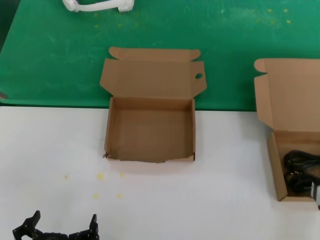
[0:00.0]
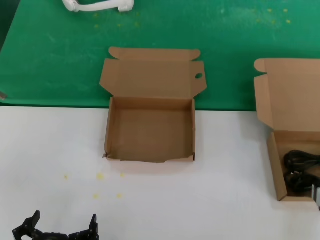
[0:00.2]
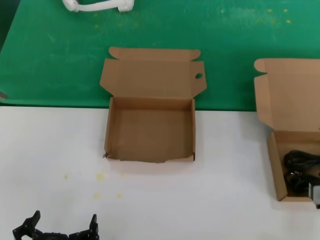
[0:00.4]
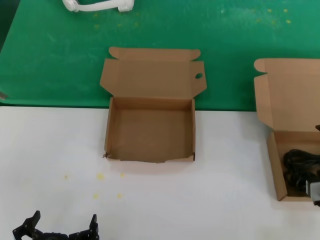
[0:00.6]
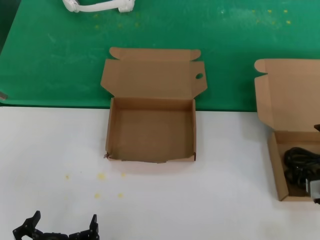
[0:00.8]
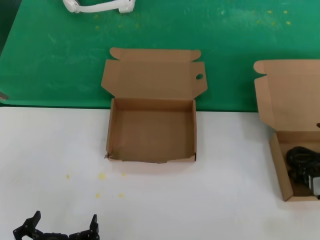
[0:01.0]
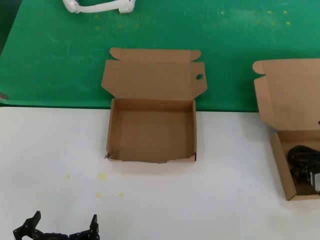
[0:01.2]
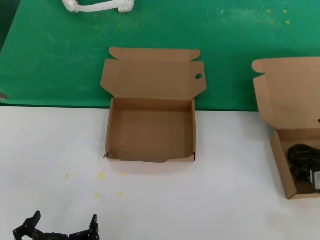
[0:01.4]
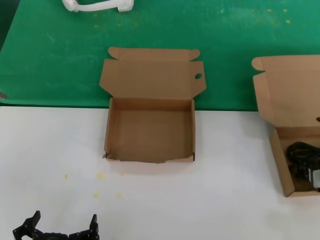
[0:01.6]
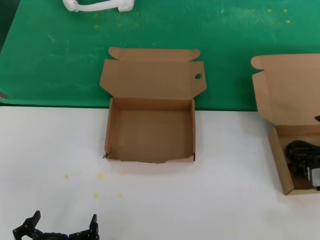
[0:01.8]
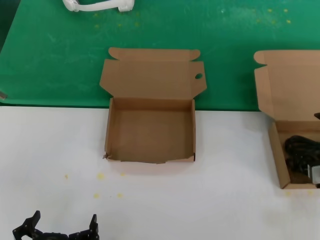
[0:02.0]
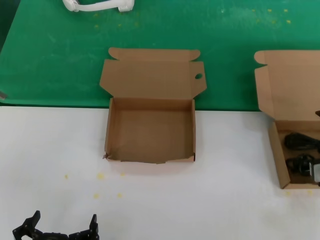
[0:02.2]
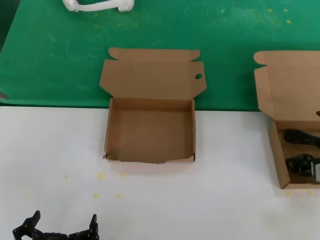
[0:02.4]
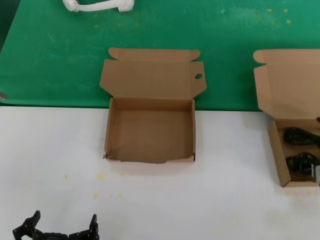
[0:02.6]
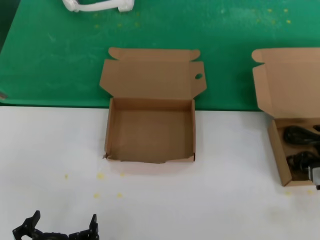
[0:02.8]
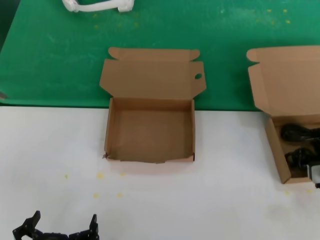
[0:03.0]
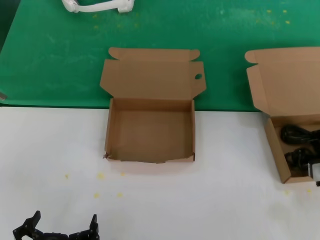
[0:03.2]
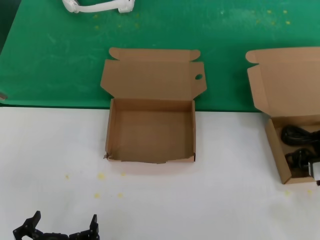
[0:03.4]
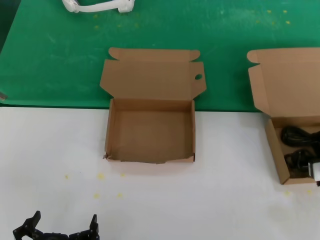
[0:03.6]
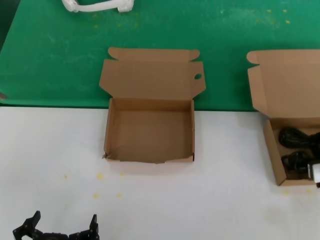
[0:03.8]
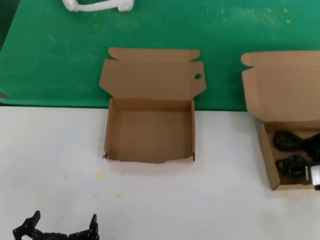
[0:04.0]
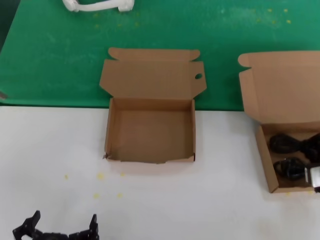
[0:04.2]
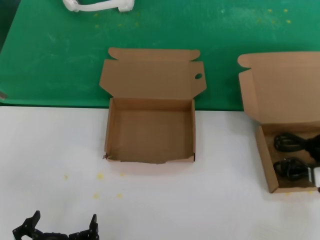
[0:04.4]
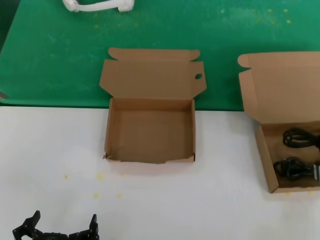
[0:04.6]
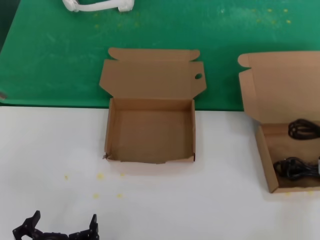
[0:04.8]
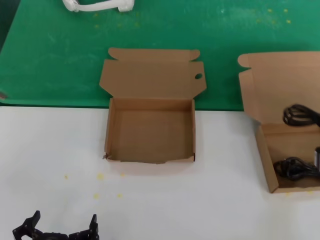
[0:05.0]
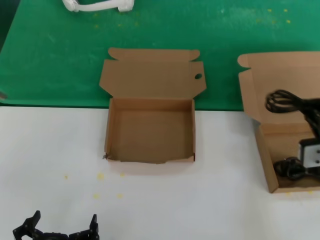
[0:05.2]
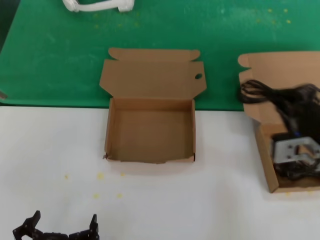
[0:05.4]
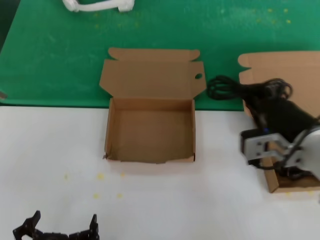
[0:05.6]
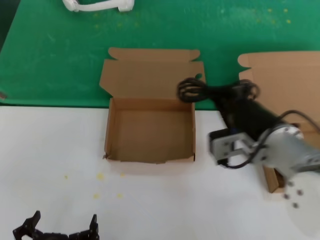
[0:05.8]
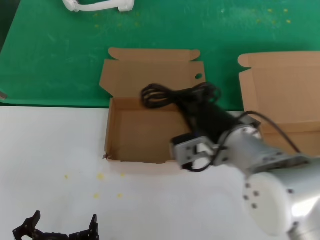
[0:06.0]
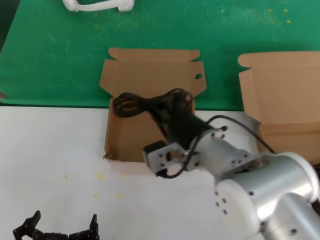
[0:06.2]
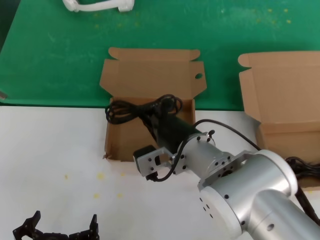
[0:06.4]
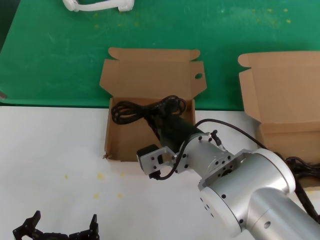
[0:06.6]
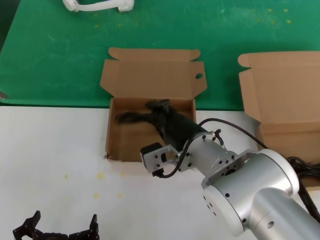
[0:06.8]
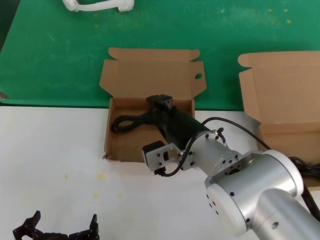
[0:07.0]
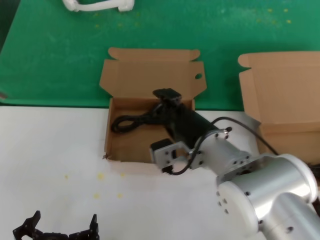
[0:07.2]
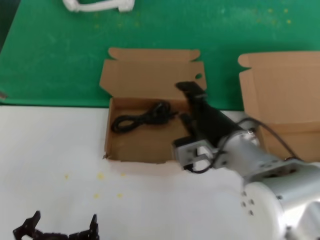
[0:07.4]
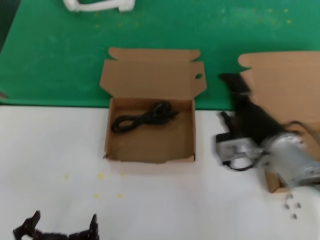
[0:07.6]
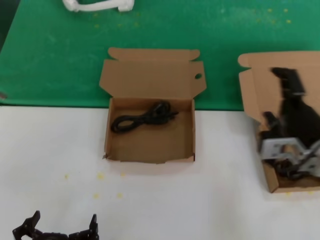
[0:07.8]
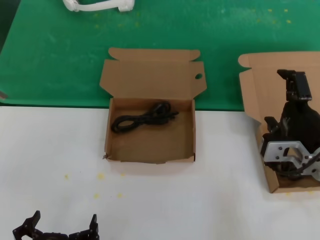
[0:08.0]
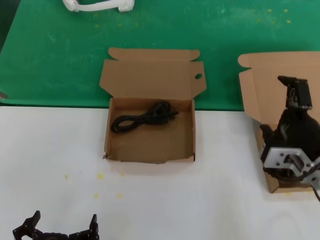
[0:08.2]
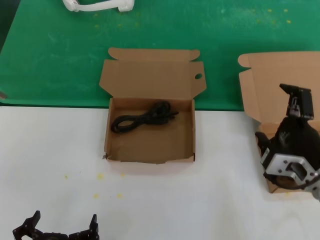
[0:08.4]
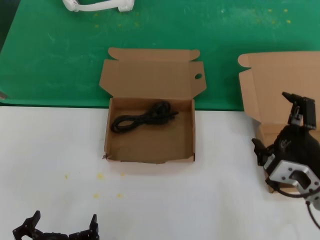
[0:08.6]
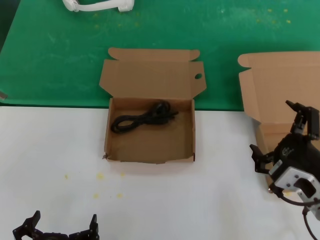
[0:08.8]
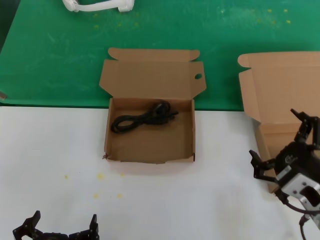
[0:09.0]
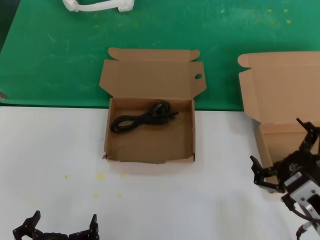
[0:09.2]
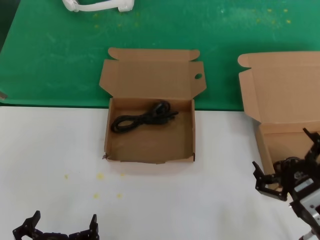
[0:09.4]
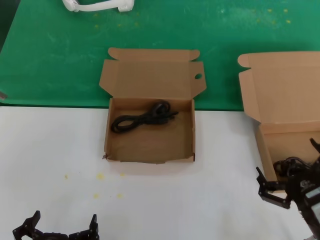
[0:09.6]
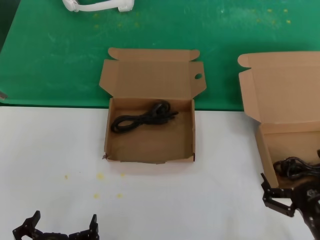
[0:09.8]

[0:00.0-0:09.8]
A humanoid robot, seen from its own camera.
Task of the whole recording: take the parts from the box containing them and put them into an empty box.
Step, 0:00.0 to 0:03.2: Grasp the data cable.
Step, 0:03.4 to 0:07.2: Place the data cable in the another box.
0:00.0 to 0:01.4: The right hand is displaced forward by about 10 cm.
0:01.4 to 0:04.2: The hands move only a little.
0:04.2 to 0:05.6: The right hand goes roughly 20 cm to the left, upward and backward.
0:05.6 to 0:07.0: The right hand moves to the left, roughly 15 cm.
0:07.0 to 0:08.4: The right hand is displaced to the right by approximately 20 cm.
0:08.4 to 0:09.8: The right hand shifts about 15 cm downward and backward.

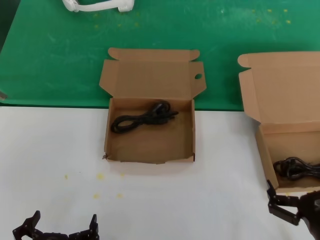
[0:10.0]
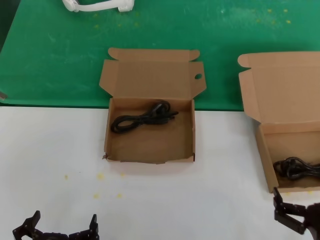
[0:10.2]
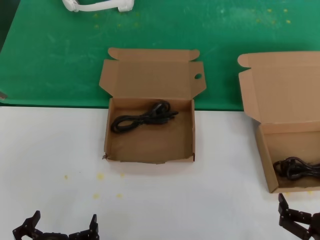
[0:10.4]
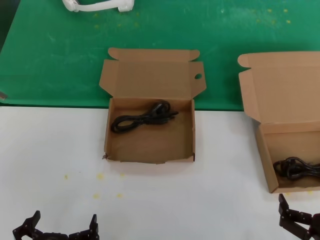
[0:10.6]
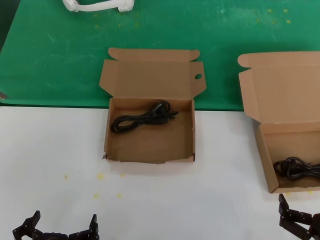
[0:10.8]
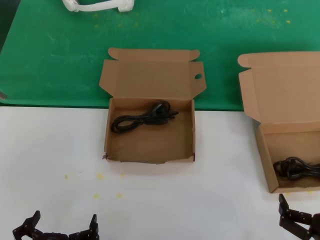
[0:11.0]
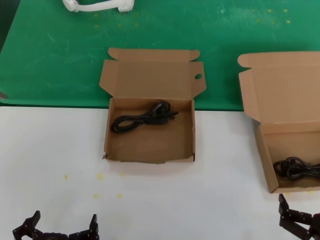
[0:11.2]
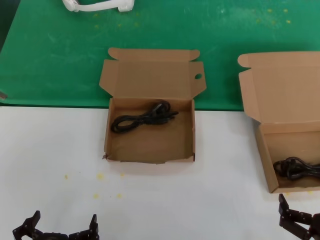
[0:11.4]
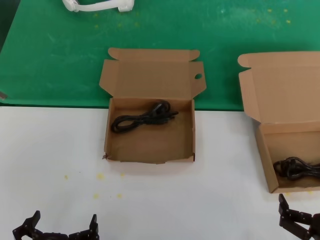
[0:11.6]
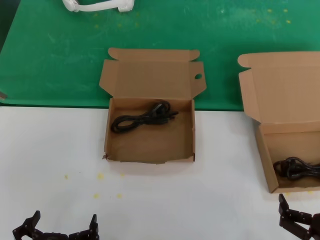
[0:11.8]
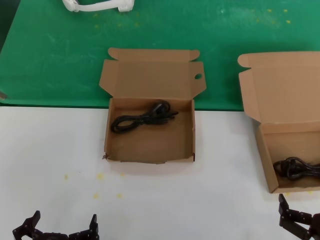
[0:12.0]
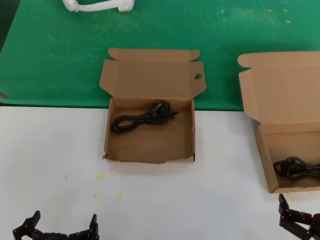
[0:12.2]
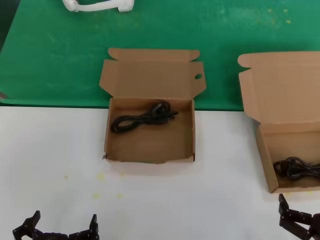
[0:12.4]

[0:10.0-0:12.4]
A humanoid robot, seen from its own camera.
Task of the whole recording: take the parts from the box containing them and put them into an empty box.
0:10.0 to 0:11.2: The hands move only a little.
0:11.2 to 0:12.4: Both hands stay about where they are.

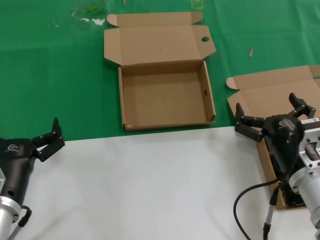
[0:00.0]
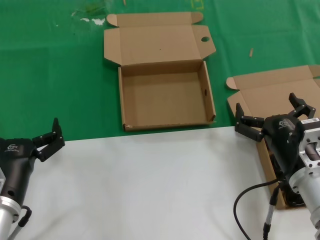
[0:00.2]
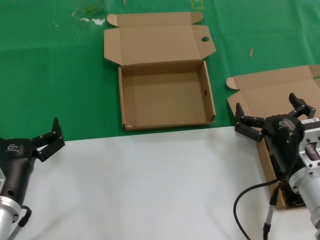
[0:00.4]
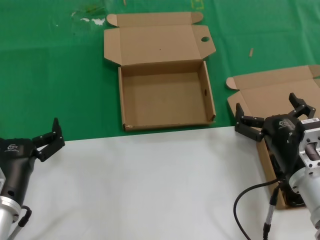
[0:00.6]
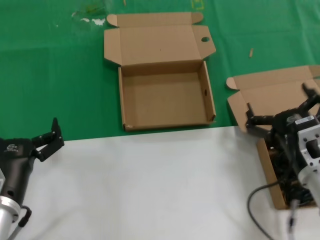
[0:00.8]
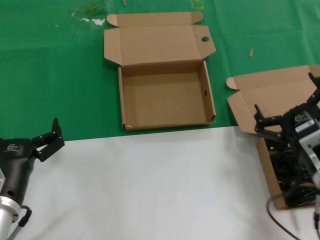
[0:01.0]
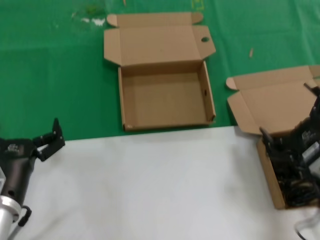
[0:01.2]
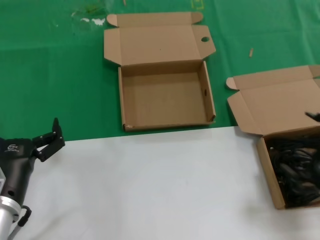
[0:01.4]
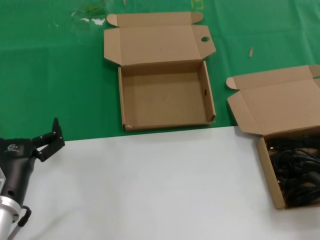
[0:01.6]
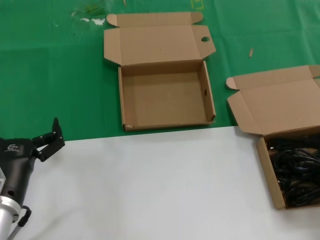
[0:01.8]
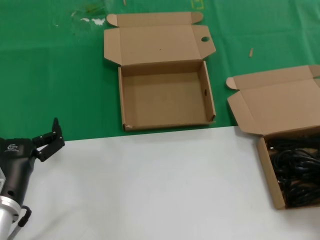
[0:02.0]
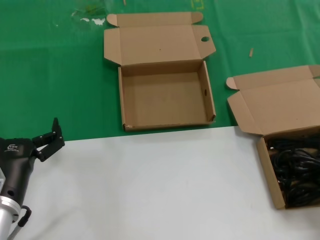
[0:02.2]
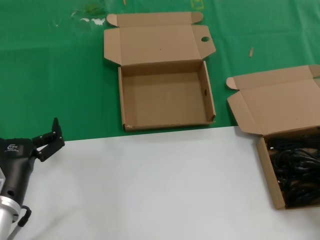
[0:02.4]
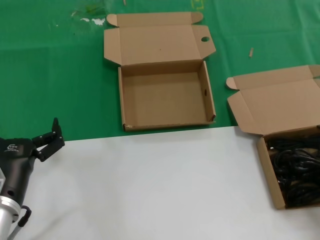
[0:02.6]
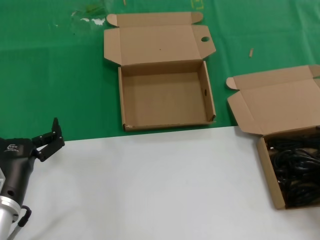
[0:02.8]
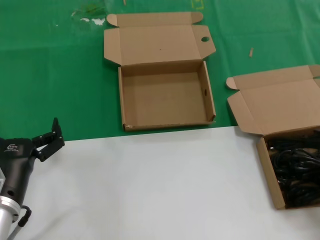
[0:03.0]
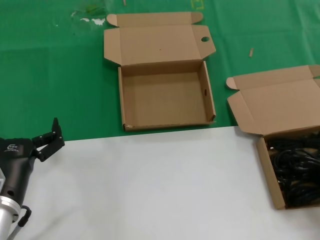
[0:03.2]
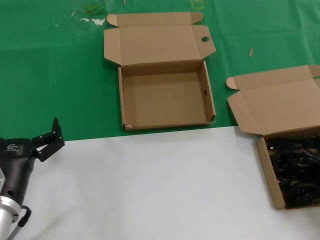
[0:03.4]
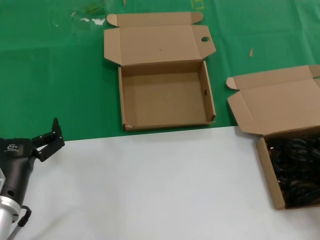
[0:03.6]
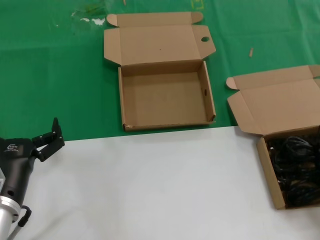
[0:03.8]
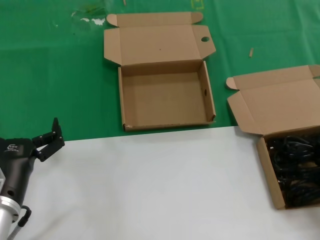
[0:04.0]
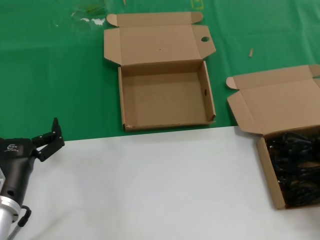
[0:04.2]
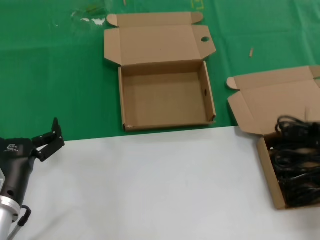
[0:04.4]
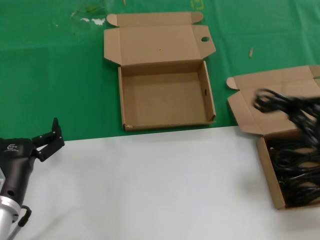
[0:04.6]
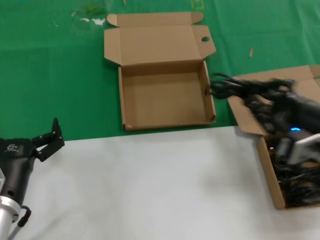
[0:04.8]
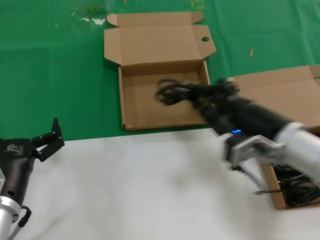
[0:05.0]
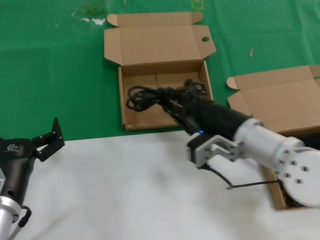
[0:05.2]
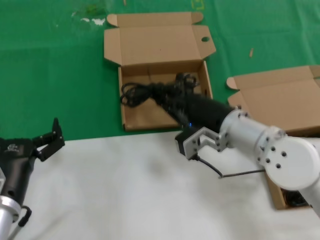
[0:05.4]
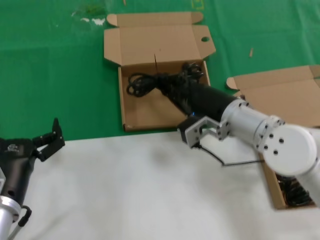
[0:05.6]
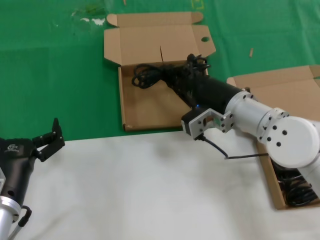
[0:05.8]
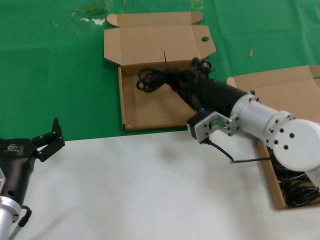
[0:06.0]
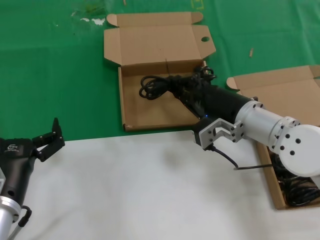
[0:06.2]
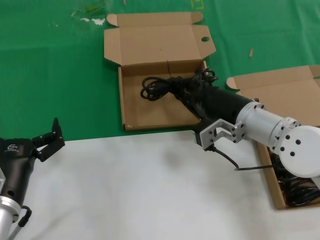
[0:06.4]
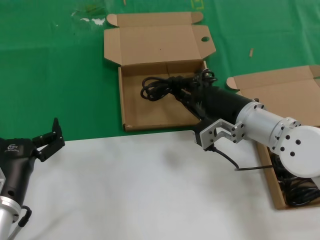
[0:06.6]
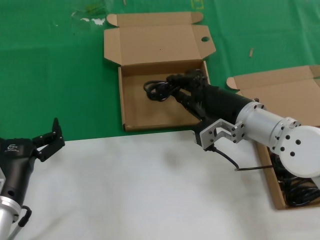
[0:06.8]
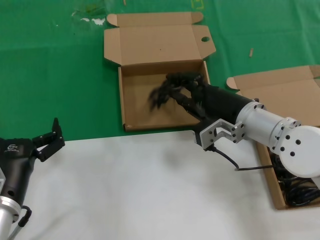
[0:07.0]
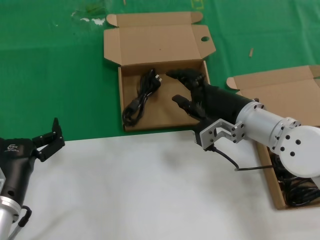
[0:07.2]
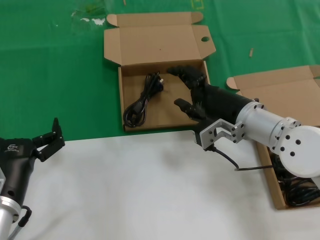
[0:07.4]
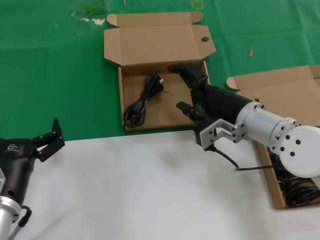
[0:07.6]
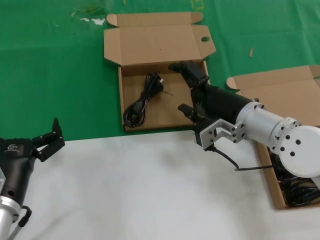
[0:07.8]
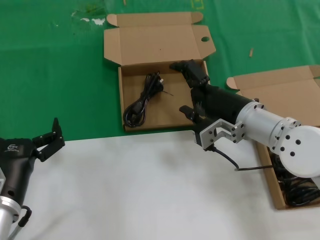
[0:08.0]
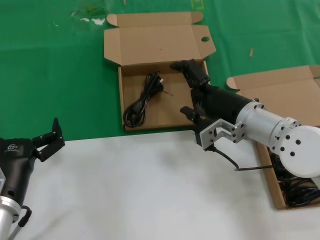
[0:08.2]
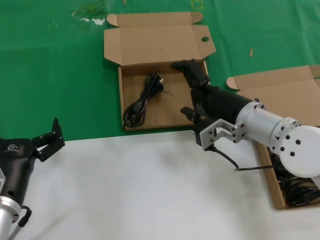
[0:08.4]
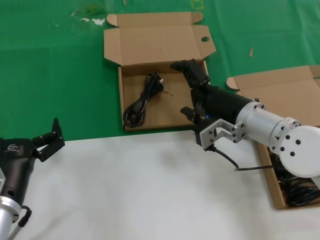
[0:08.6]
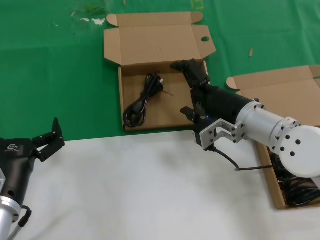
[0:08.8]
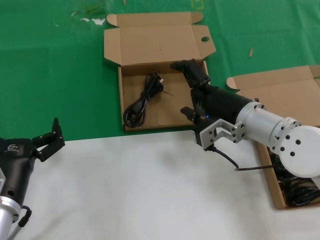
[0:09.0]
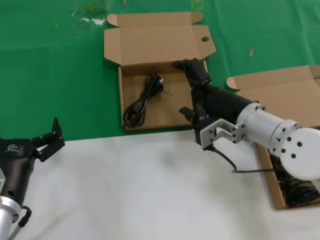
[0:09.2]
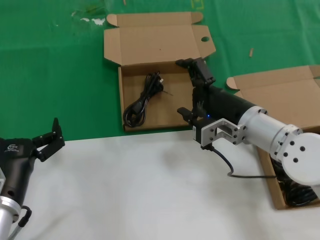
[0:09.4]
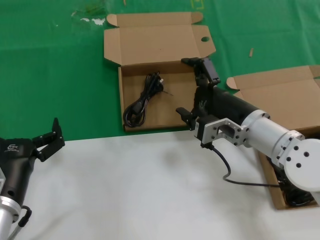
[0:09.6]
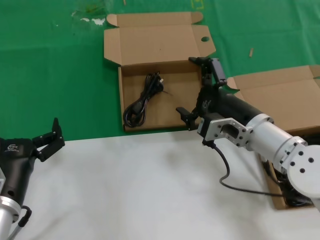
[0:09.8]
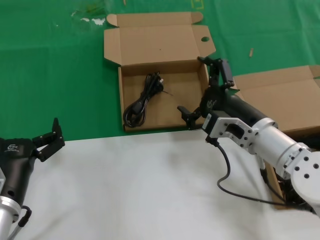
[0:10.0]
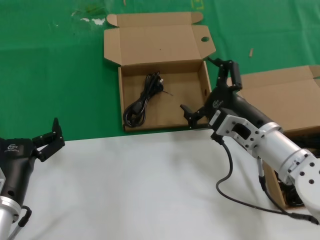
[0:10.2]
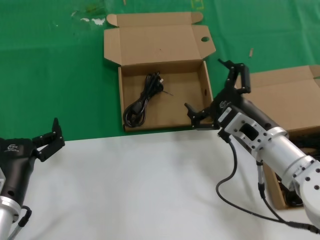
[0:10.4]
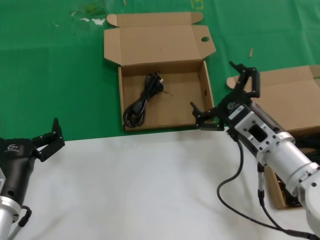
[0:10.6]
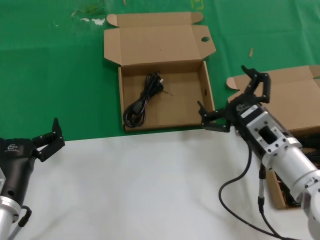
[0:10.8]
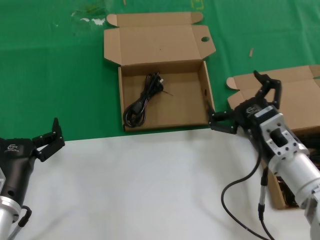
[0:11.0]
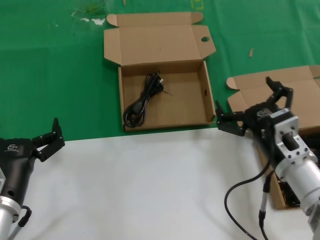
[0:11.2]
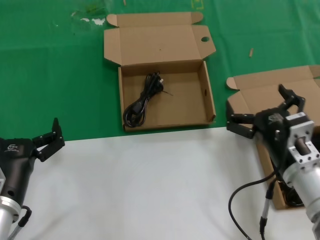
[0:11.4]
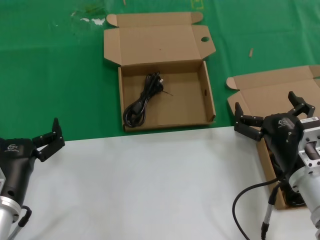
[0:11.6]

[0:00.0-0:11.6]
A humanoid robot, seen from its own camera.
Task of the whole recording: take the parts from the box containing them and put them into an empty box.
Step, 0:00.0 to 0:03.8: Grasp the data cable.
Step, 0:04.2 to 0:07.2: Place the data cable in the another box.
0:00.0 to 0:01.4: The right hand goes roughly 10 cm to the right and backward.
0:01.4 to 0:02.8: The right hand shifts approximately 10 cm to the right.
0:02.8 to 0:04.4: There are only small adjustments of the hands.
0:04.4 to 0:05.8: The right hand is displaced to the left and forward by roughly 30 cm.
0:05.8 to 0:07.2: The hands make only small movements.
0:07.2 to 0:08.8: Both hands stay put.
0:08.8 to 0:10.2: The right hand shifts by about 5 cm.
0:10.2 to 0:11.6: The right hand travels backward by approximately 5 cm.
